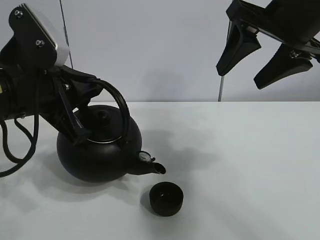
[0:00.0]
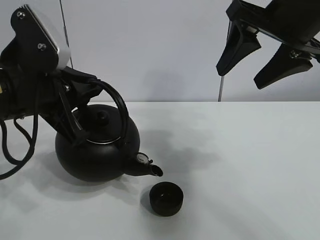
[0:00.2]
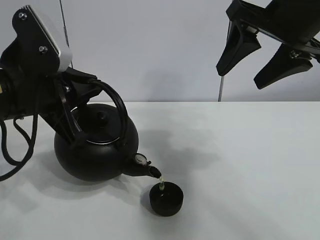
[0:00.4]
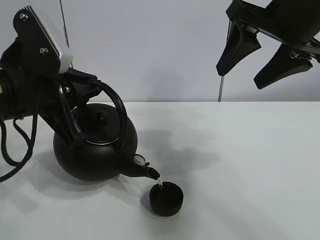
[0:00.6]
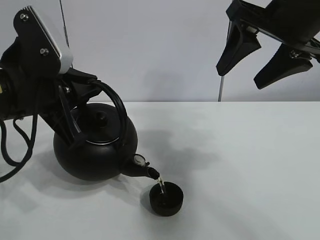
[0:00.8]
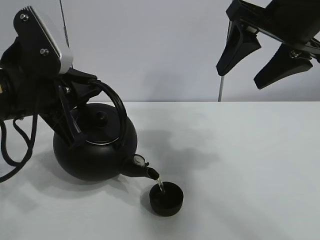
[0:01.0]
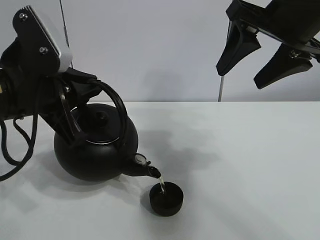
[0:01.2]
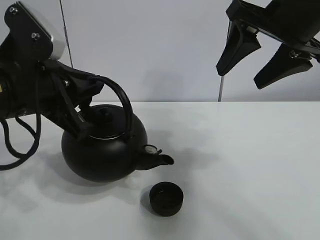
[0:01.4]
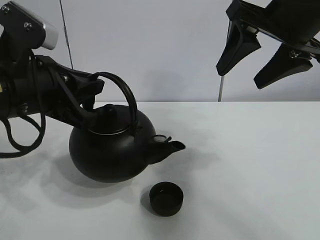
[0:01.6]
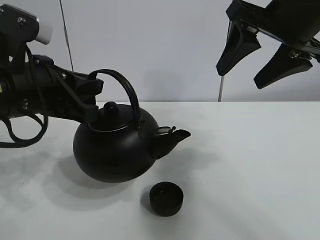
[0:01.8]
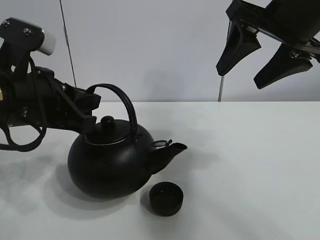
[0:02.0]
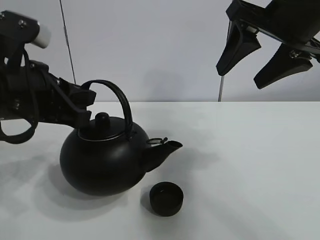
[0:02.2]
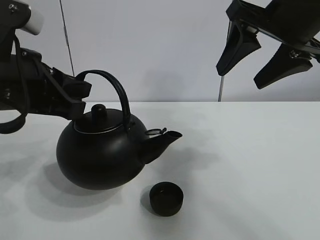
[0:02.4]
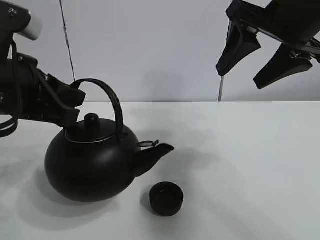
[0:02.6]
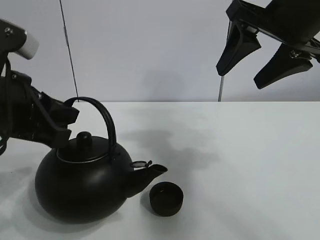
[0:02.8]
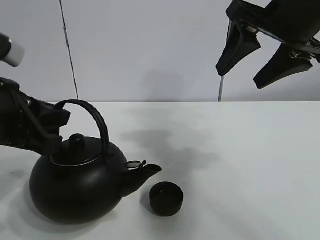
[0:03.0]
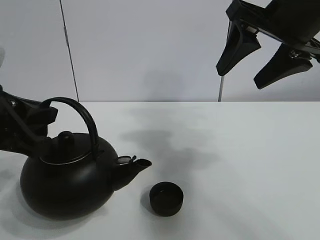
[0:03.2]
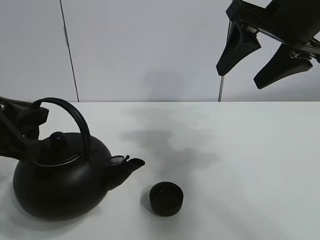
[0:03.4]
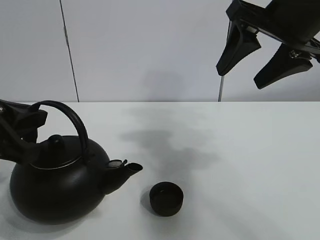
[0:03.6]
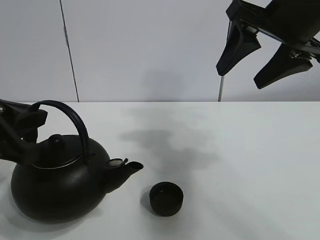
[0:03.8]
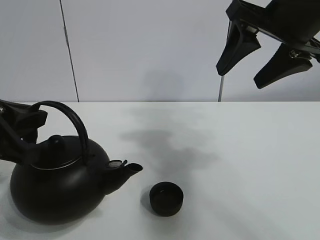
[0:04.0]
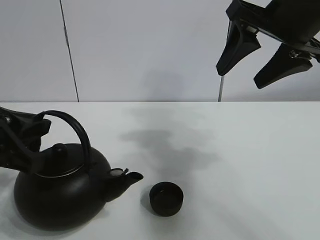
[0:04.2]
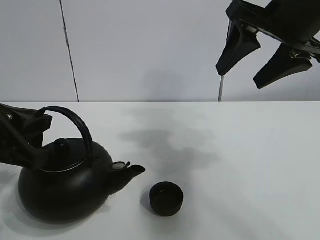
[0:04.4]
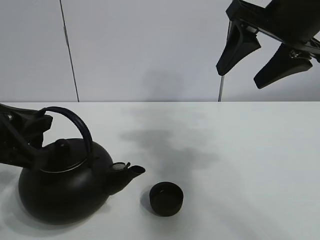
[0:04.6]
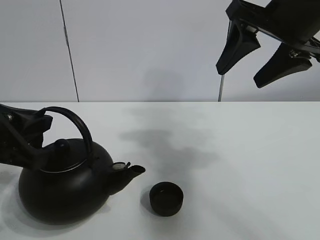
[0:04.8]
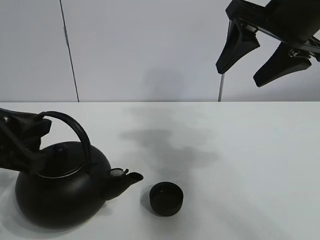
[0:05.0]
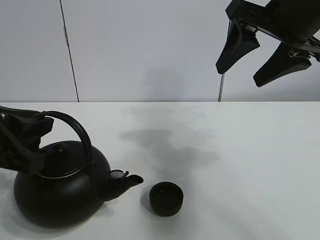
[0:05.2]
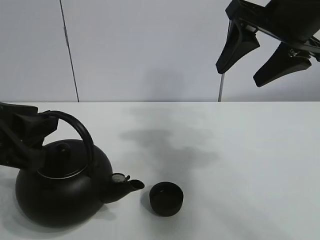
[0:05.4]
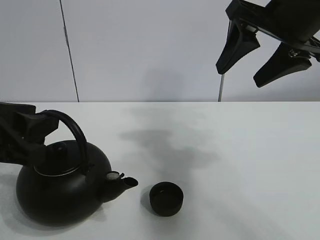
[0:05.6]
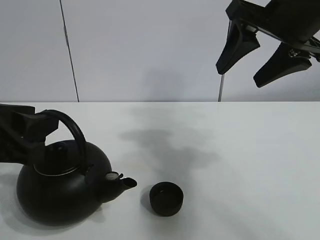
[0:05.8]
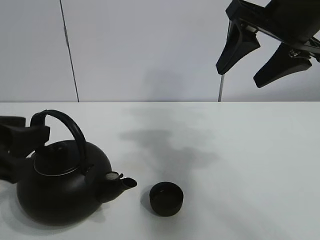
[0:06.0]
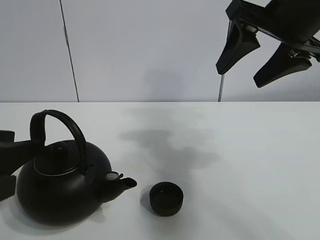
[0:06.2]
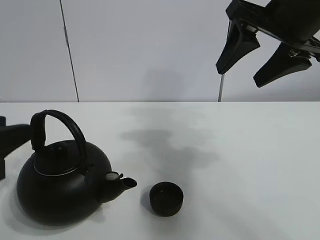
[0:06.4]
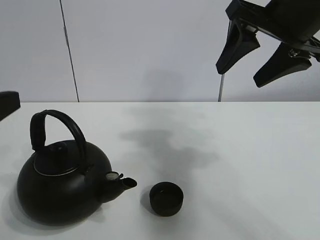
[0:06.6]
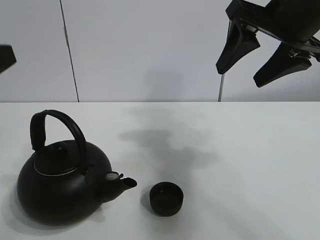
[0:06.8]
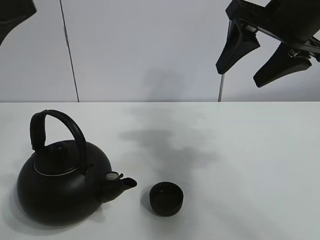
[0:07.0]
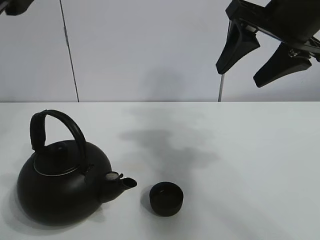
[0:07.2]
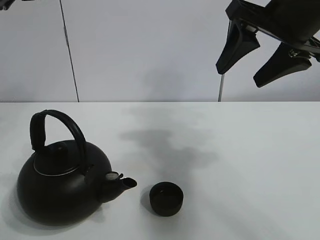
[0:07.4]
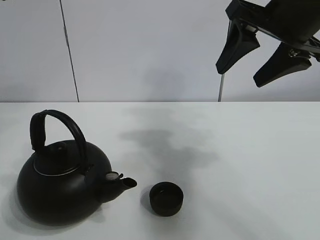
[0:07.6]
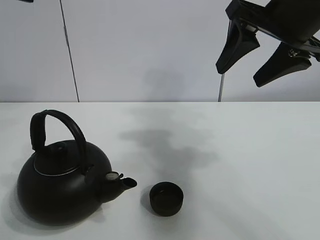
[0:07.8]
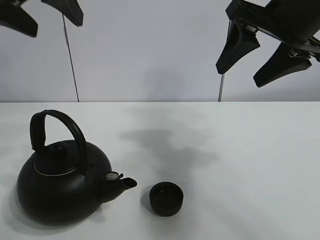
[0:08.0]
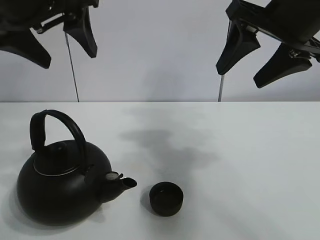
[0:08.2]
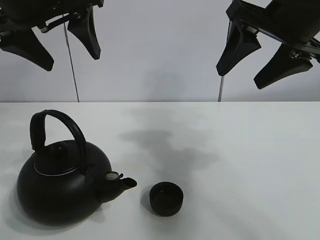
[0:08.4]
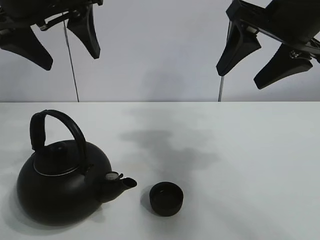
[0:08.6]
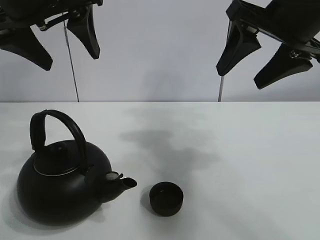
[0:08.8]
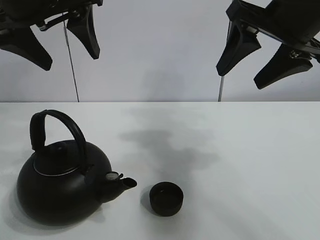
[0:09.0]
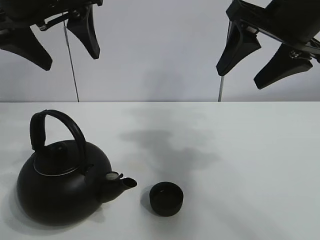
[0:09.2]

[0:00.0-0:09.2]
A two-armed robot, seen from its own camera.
Task of the whole recording: pour tea into the teacup.
0:00.0 to 0:01.6: The grippers stay close to where they were, moving slightly.
0:03.0 to 0:04.6: The grippers make only small movements.
0:04.6 to 0:06.2: The left gripper opens up.
0:06.2 to 0:07.6: The left gripper is displaced upward and forward by roughly 20 cm.
0:07.6 to 0:09.2: The left gripper is displaced forward by roughly 5 cm, and opens its fingers.
